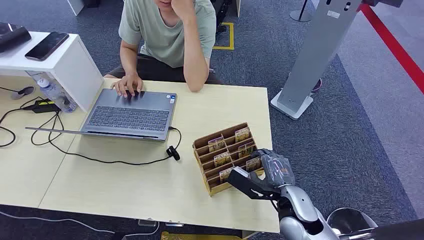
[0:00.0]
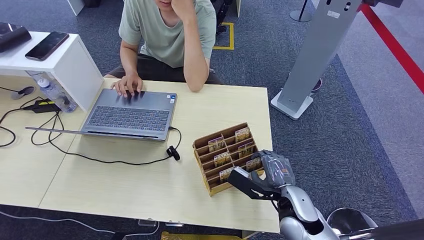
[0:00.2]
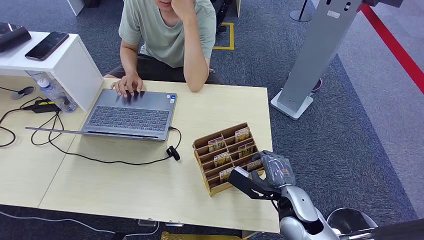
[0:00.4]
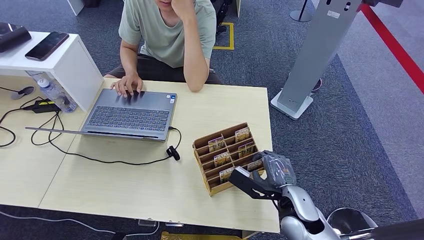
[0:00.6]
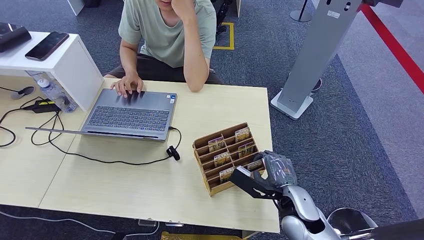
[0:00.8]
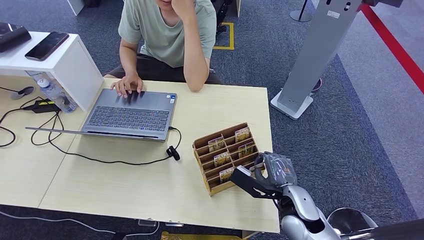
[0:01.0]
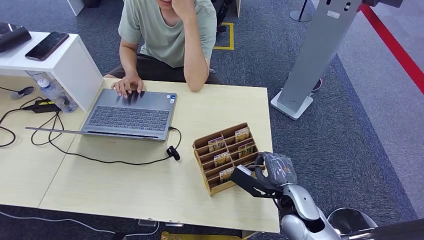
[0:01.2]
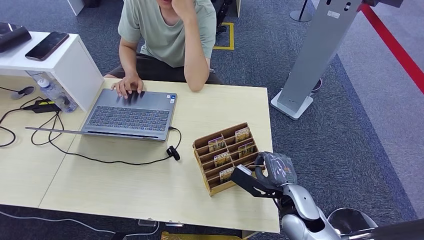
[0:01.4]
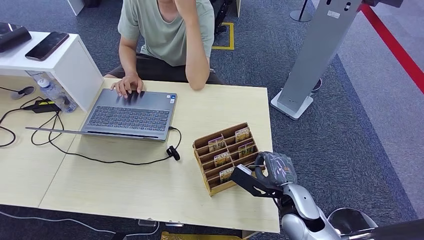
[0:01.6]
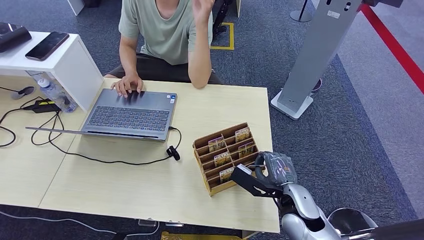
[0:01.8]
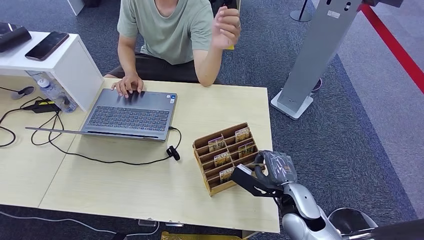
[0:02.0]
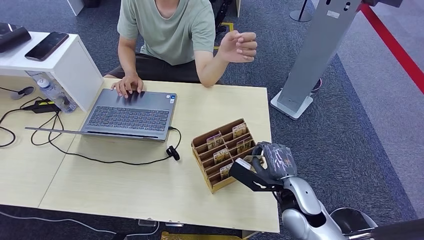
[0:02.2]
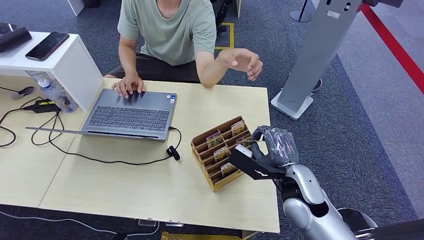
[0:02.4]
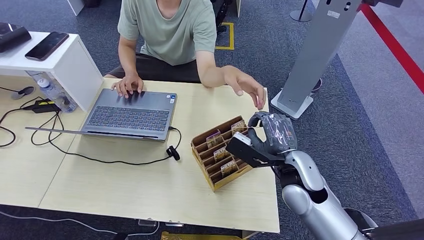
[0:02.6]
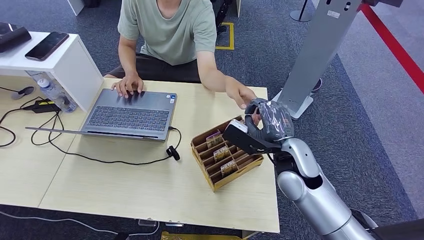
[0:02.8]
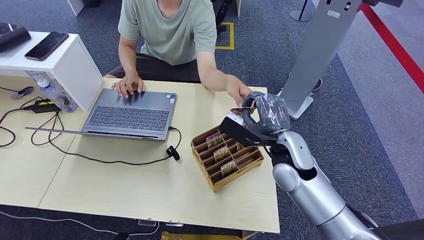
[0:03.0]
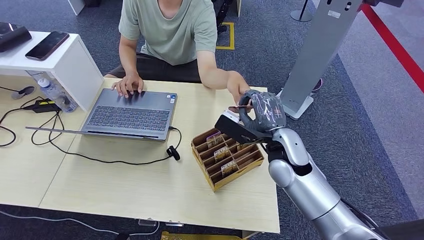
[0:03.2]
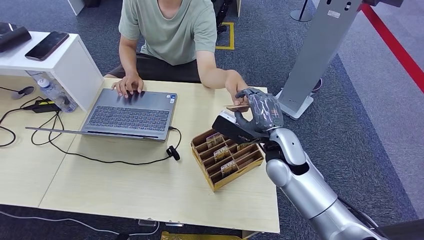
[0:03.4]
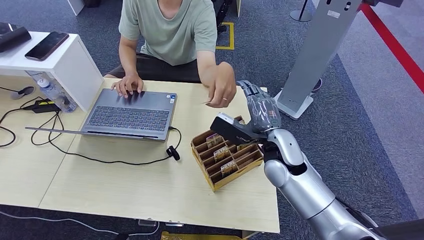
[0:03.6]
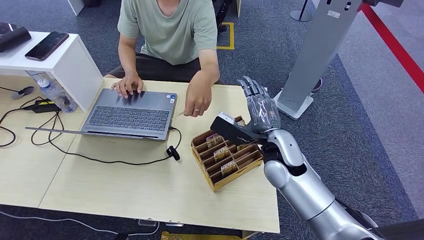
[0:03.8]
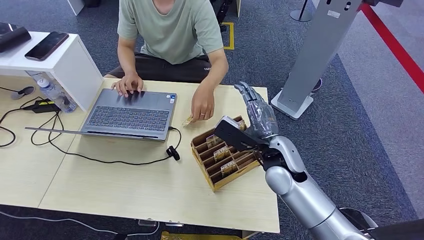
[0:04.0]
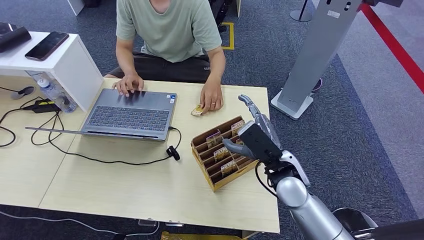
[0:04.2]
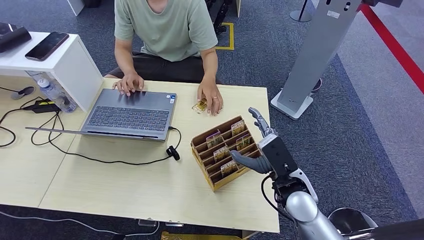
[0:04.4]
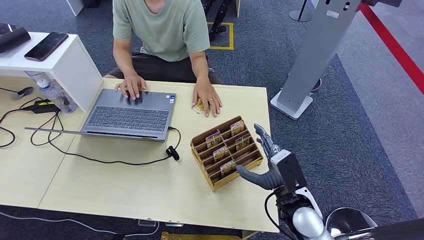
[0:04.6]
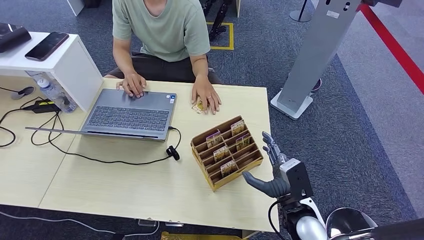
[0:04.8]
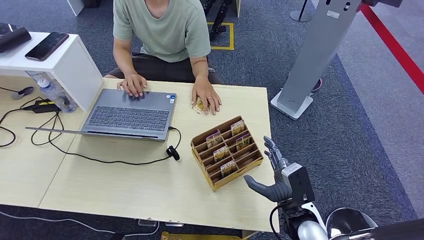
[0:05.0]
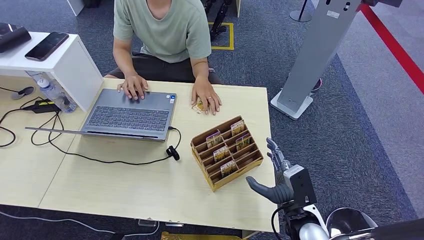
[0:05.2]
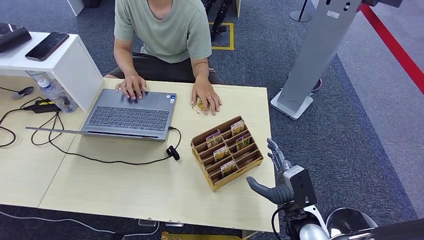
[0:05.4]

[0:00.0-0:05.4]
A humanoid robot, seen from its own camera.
Step, 0:00.0 to 0:02.2: Pick up the key card from the card box.
Step, 0:02.4 to 0:05.4: Hand the key card to the target.
0:01.4 to 0:02.8: The right hand travels upward and forward by approximately 15 cm.
0:02.8 to 0:04.0: The hands stay close to where they were, moving slightly.
0:04.0 to 0:05.4: The right hand moves backward, downward and to the right, about 20 cm.
